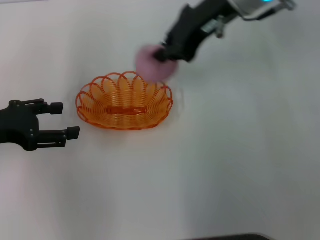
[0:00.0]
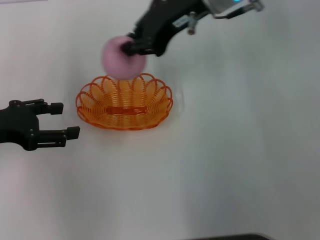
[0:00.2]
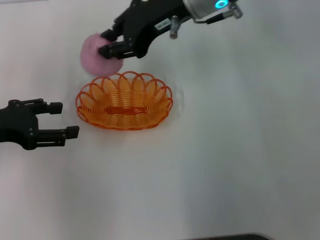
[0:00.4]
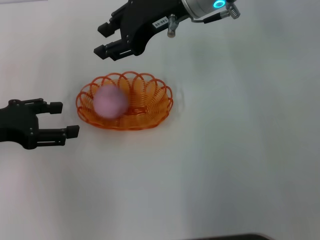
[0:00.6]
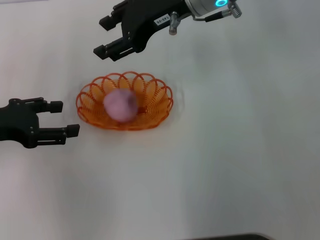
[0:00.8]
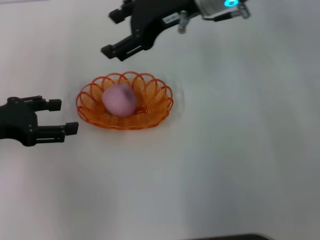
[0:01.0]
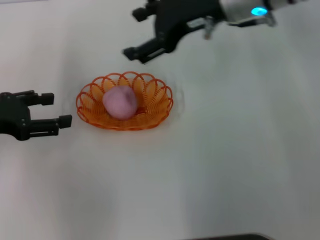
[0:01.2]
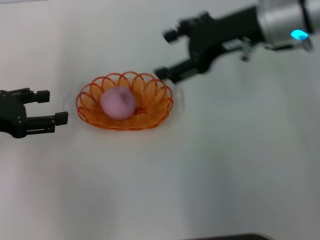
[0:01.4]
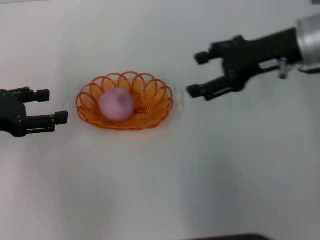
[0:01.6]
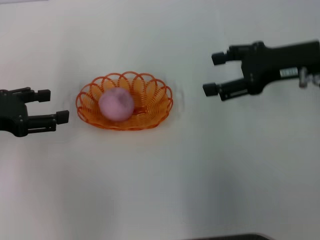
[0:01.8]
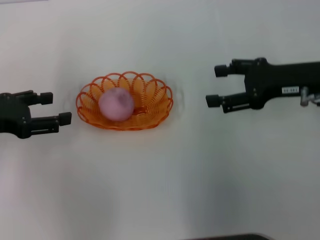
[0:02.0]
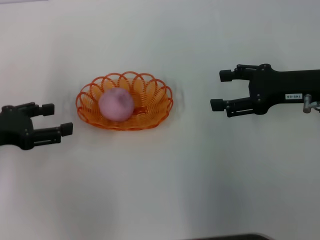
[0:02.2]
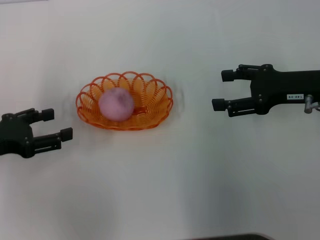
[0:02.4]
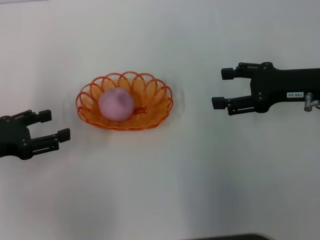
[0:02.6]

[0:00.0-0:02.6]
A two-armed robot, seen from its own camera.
Step, 0:00.0 to 0:01.4: Place the peach into the basket with the right gripper.
0:00.0 to 0:01.2: The right gripper opens its fingers.
0:01.2 to 0:02.6: The left gripper ends up approximately 5 cm from where it was, while the right gripper shifts about 20 cm to the right, downward and backward.

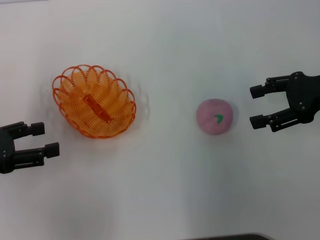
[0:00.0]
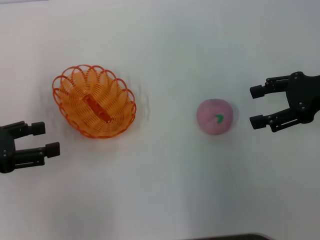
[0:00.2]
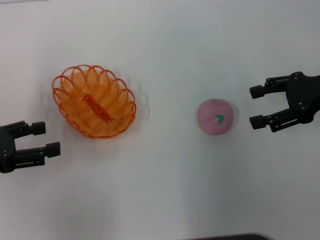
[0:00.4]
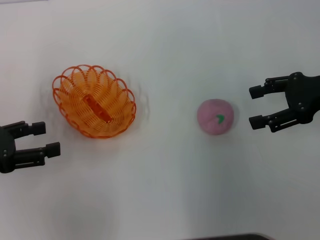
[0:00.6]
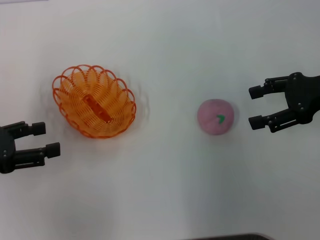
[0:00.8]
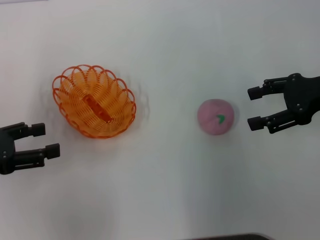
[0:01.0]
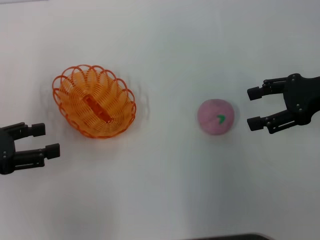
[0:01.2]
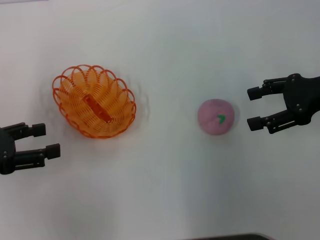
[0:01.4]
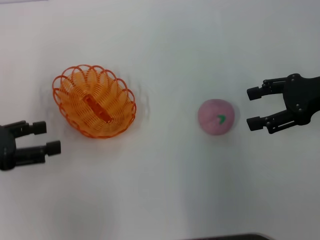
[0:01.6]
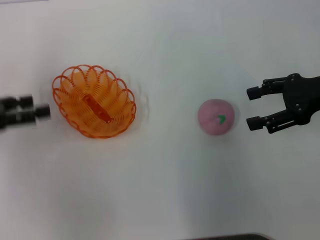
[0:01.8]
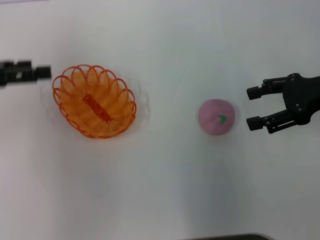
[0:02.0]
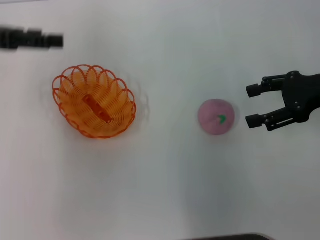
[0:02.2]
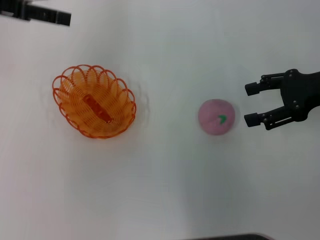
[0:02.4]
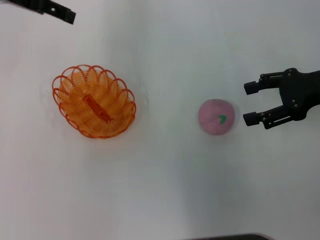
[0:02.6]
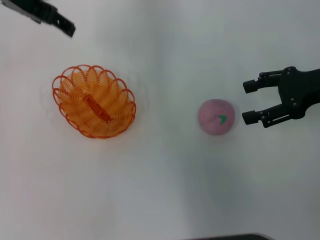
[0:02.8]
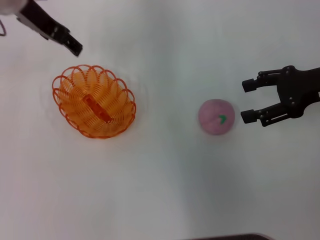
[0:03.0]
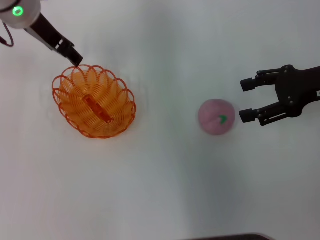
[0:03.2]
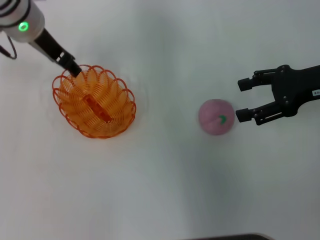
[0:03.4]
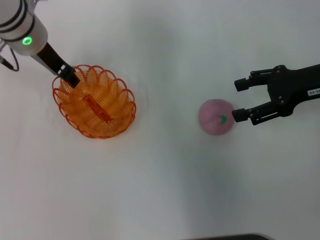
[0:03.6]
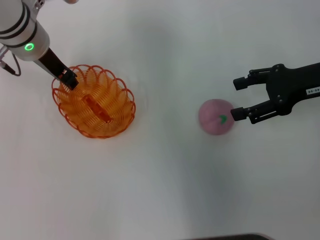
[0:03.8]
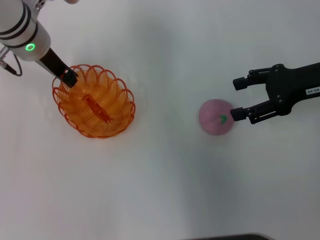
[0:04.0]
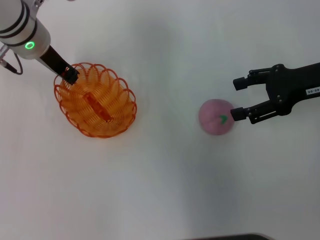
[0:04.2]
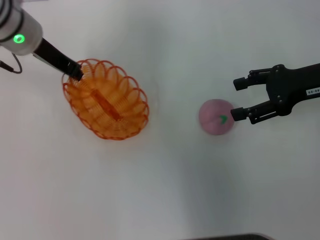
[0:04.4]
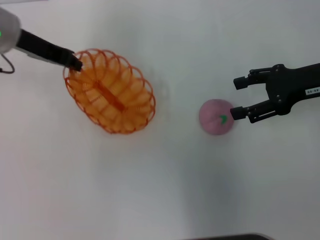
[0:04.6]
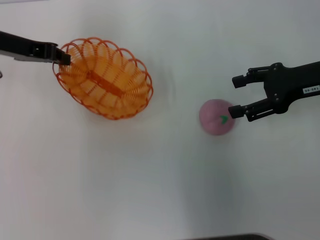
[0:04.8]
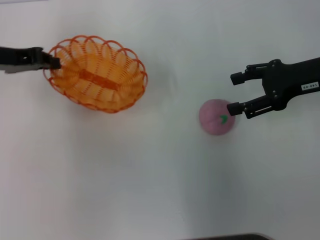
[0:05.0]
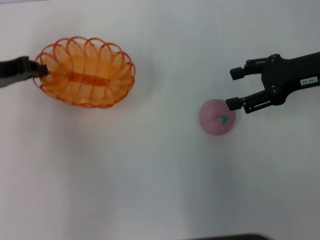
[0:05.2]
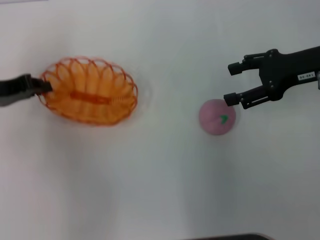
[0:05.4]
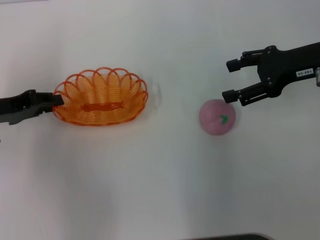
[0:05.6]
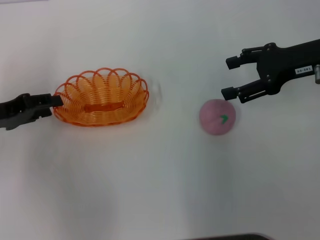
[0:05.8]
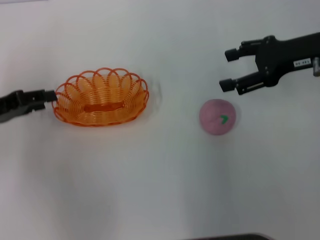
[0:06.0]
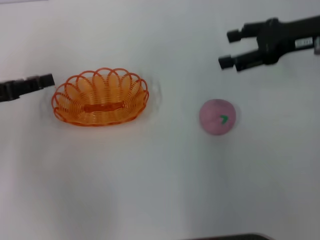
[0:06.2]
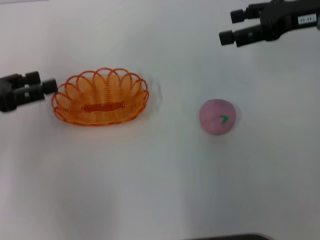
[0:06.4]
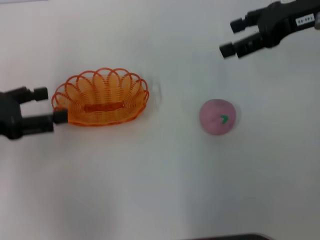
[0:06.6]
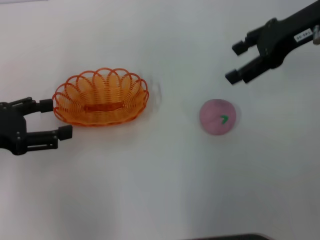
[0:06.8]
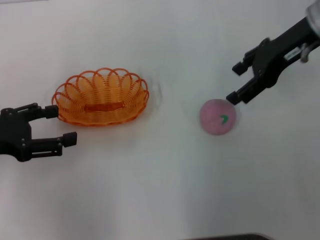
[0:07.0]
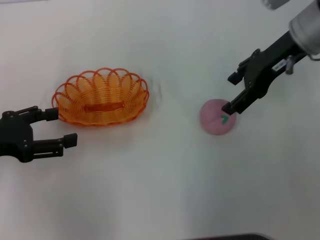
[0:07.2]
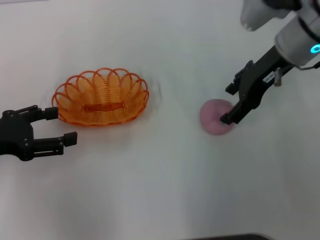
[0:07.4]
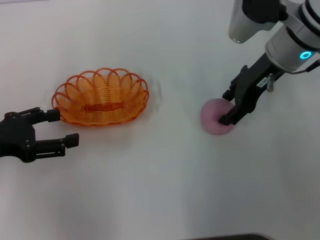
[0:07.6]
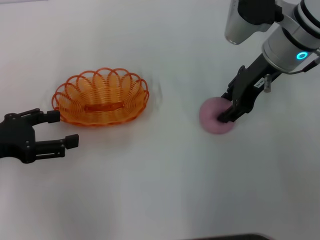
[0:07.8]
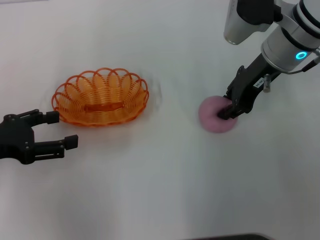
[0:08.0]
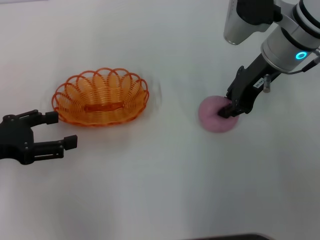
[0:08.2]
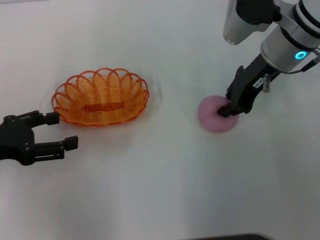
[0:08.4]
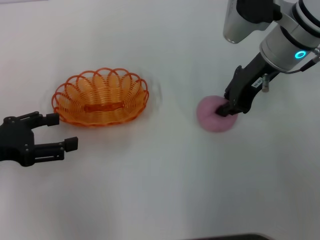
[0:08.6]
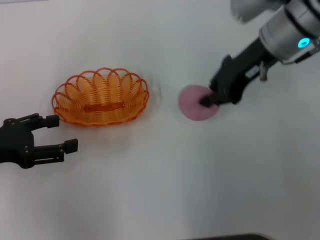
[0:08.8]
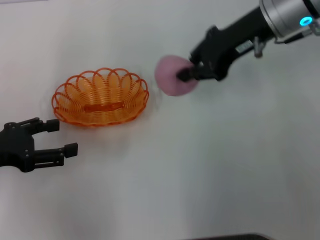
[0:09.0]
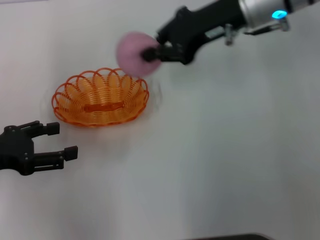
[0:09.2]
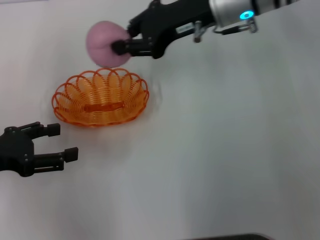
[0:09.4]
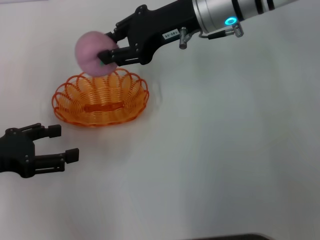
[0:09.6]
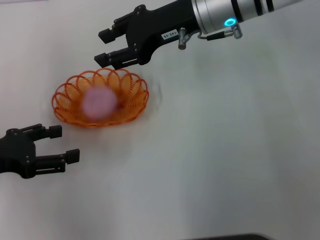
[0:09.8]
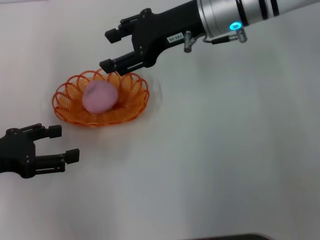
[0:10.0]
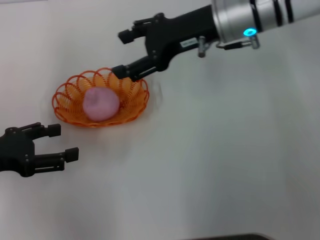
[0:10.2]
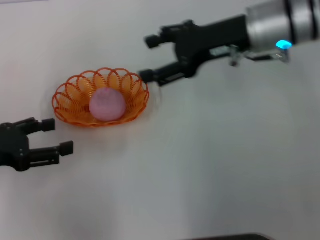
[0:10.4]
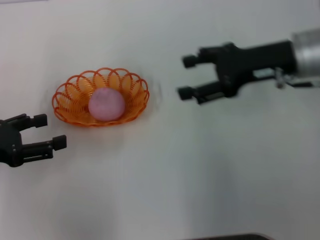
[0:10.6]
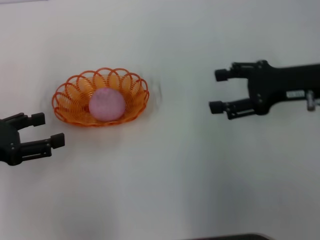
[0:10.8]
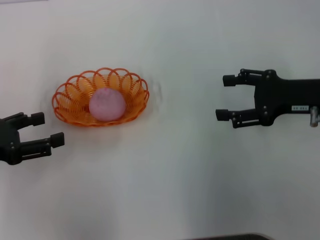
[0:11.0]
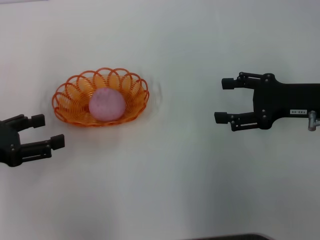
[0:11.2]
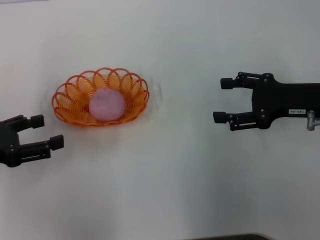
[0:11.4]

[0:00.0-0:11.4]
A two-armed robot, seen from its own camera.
Step, 0:00.0 to 0:04.2: Pick up the basket with the left gripper.
Step, 0:04.4 to 0:06.2: Place the basket in the center of view with the left gripper.
Step, 0:06.6 to 0:08.8: Pick up the peach with the right gripper.
Step, 0:09.0 to 0:10.0: Place the peach into the basket with the right gripper.
0:00.0 to 0:01.4: The two grippers keep their place.
0:01.4 to 0:02.8: The left gripper heads forward, upward and to the right, covering about 25 cm.
0:02.8 to 0:04.2: The left gripper is displaced downward by some 10 cm, and closes up.
0:04.2 to 0:05.6: The left gripper goes some 20 cm to the left, backward and downward.
0:05.6 to 0:07.2: The left gripper travels backward by roughly 5 cm, and opens its fingers; the right gripper travels to the left by roughly 5 cm.
0:07.2 to 0:08.6: The right gripper closes up.
0:08.6 to 0:10.0: The right gripper is displaced to the left by some 5 cm, and opens up.
0:10.0 to 0:11.4: The right gripper travels to the right, backward and downward by approximately 20 cm.

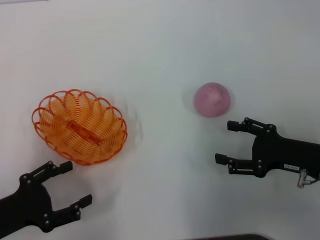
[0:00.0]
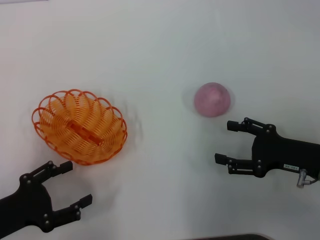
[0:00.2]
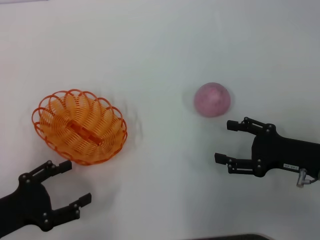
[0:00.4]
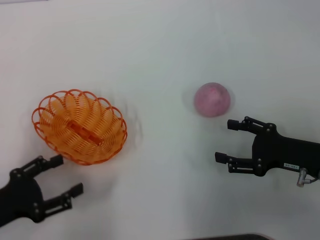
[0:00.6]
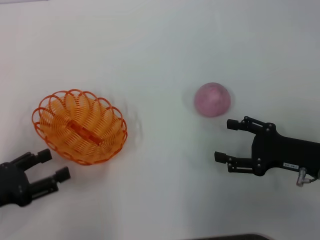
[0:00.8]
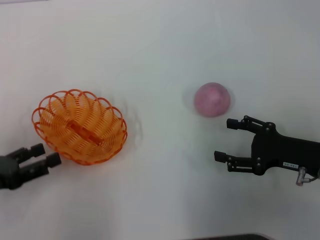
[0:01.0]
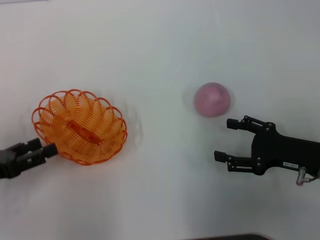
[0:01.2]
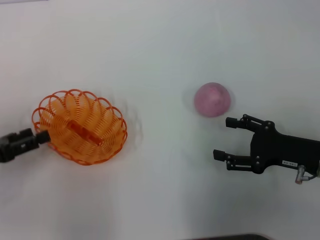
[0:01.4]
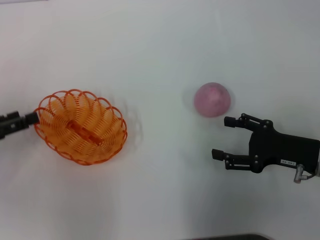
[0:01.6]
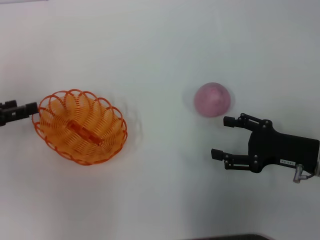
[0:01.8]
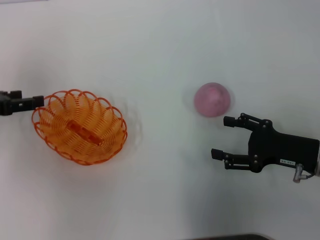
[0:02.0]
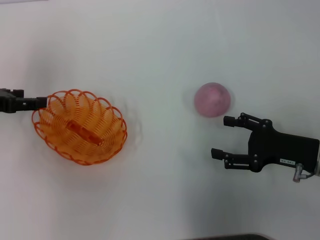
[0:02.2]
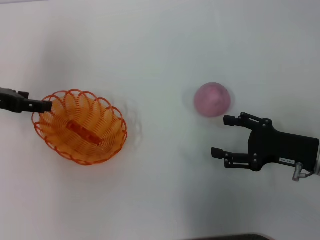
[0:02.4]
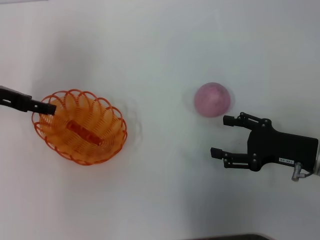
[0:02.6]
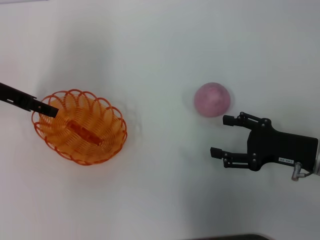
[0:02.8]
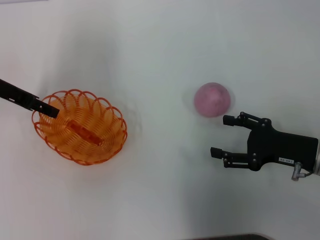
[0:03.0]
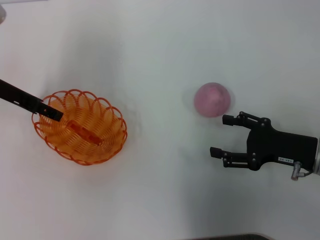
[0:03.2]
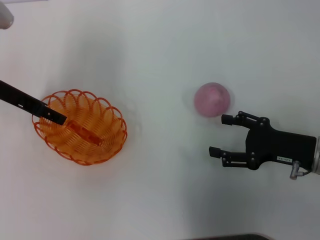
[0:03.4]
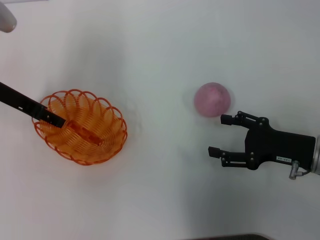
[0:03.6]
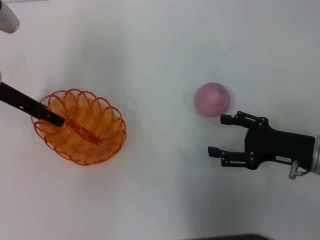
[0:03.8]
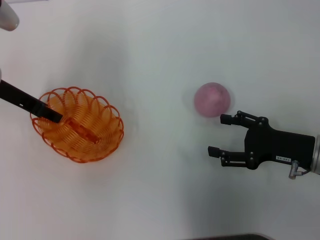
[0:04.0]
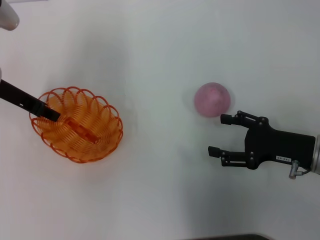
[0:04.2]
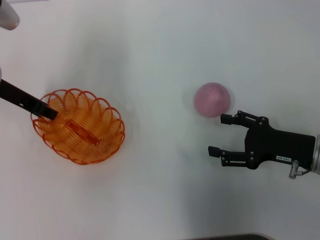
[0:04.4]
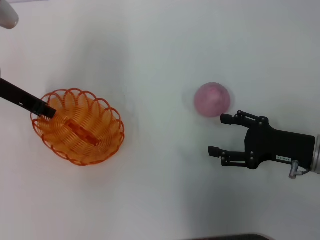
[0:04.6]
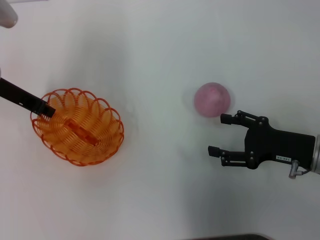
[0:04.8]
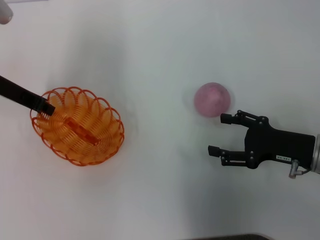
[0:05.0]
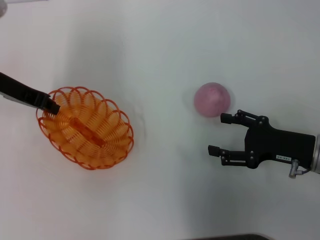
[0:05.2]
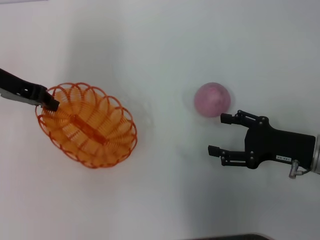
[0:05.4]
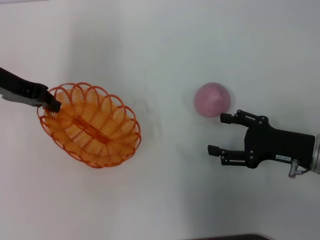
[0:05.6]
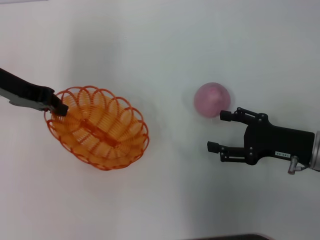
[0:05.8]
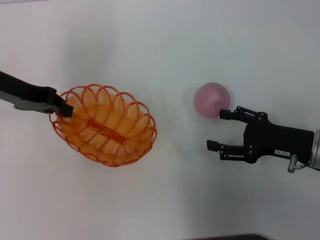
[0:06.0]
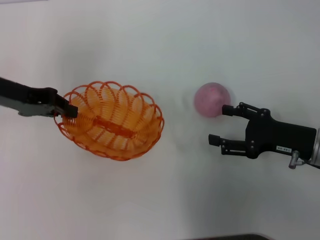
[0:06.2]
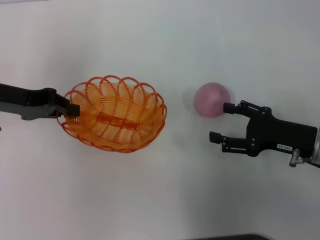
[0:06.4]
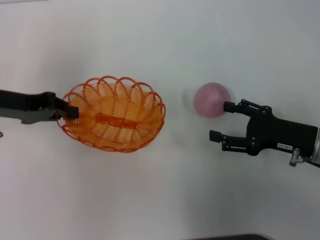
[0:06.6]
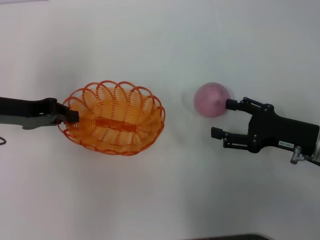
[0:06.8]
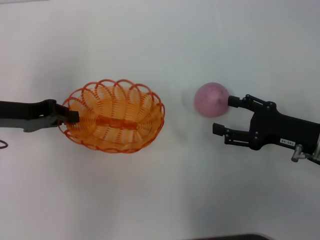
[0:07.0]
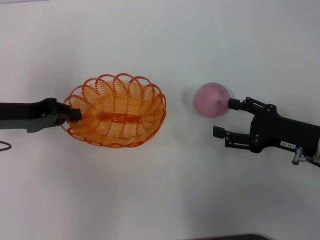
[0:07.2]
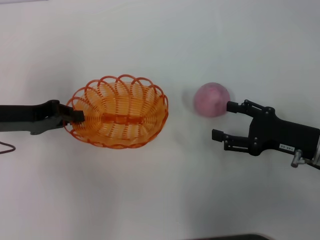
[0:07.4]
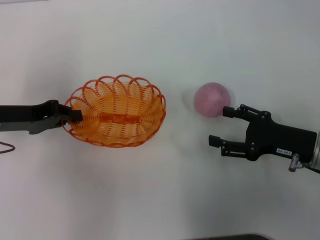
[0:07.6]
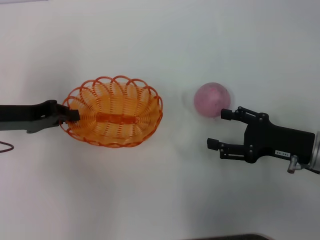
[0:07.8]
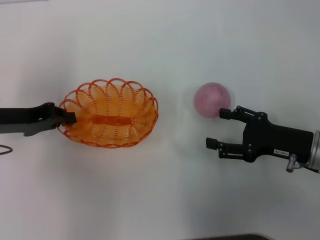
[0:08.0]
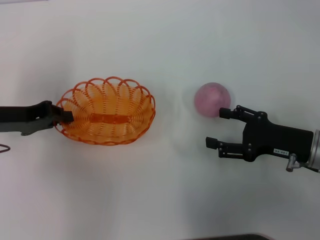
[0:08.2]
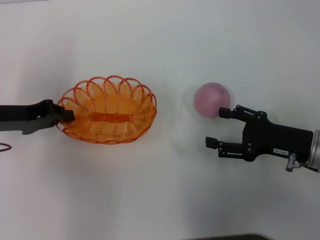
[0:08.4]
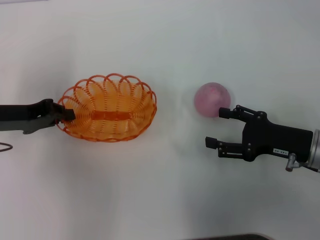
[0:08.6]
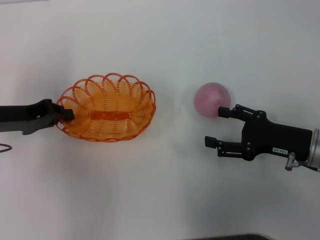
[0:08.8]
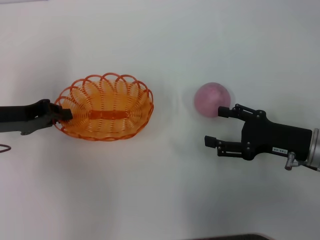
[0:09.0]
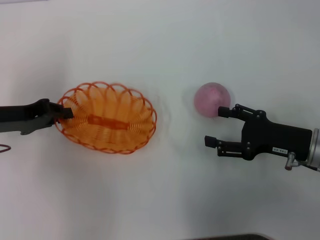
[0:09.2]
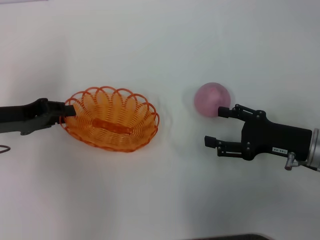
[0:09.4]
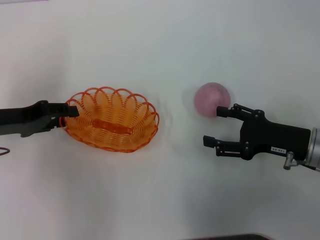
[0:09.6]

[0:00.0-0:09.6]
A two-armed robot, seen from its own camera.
Step, 0:00.0 to 0:05.4: Pick up the basket with the left gripper.
0:00.0 to 0:01.6: The left gripper is displaced forward and to the left by approximately 10 cm.
0:01.6 to 0:03.2: The left gripper travels forward, to the right and upward by approximately 15 cm.
0:03.2 to 0:04.8: The left gripper closes.
0:06.4 to 0:08.0: The left gripper moves roughly 5 cm.
0:08.0 to 0:09.6: The left gripper opens.
